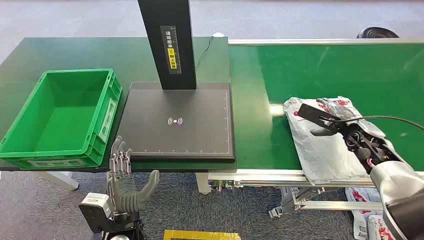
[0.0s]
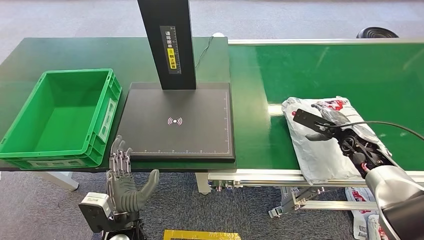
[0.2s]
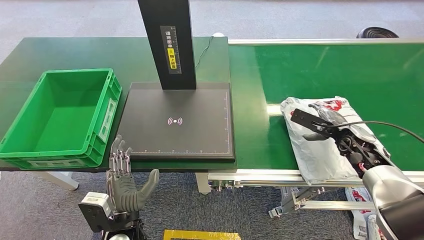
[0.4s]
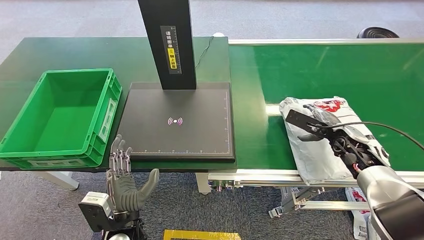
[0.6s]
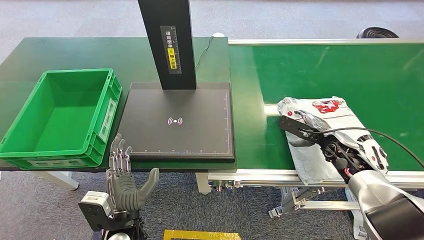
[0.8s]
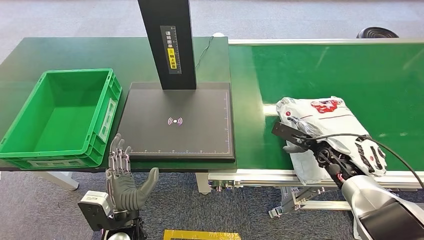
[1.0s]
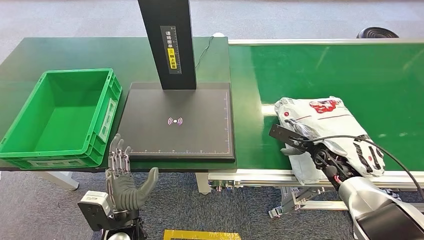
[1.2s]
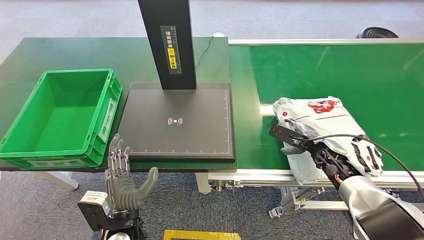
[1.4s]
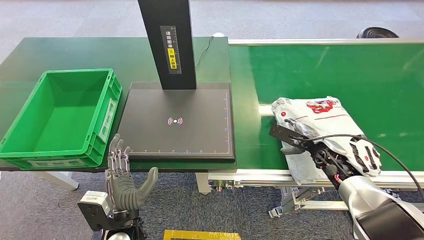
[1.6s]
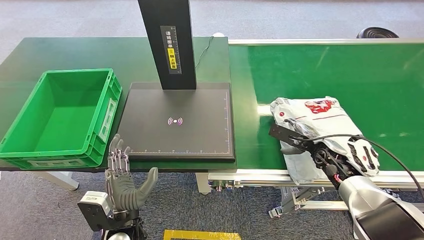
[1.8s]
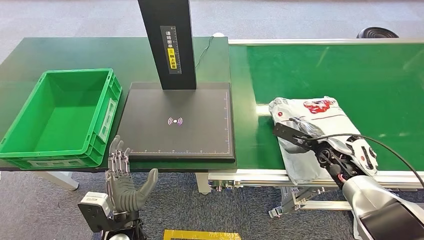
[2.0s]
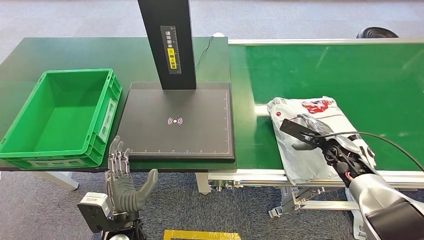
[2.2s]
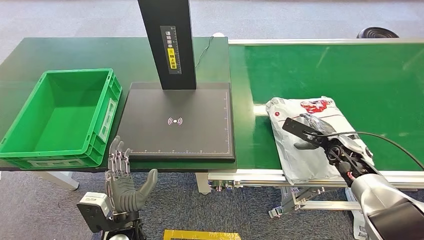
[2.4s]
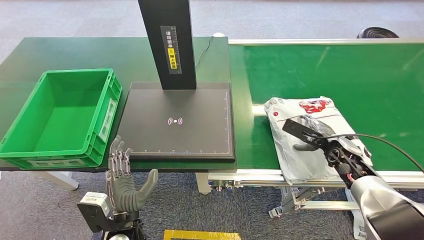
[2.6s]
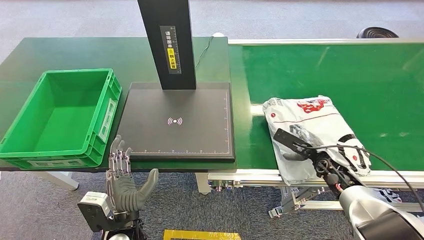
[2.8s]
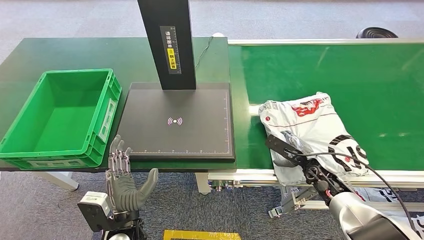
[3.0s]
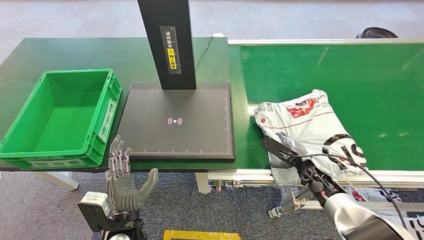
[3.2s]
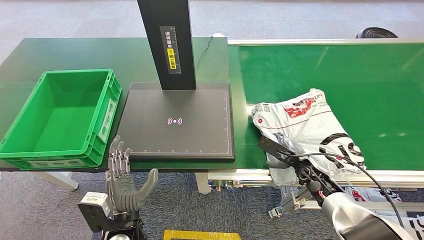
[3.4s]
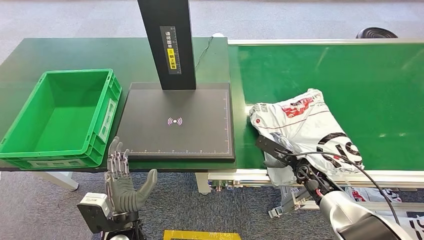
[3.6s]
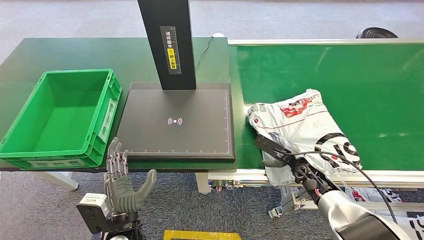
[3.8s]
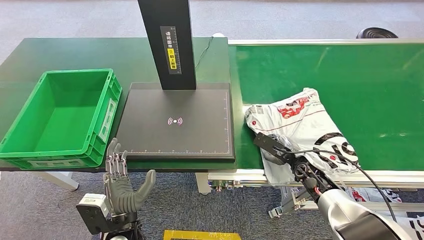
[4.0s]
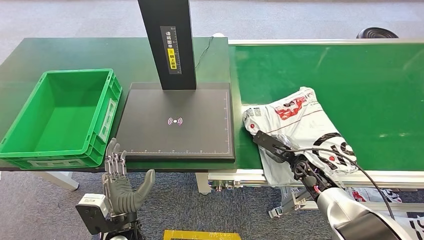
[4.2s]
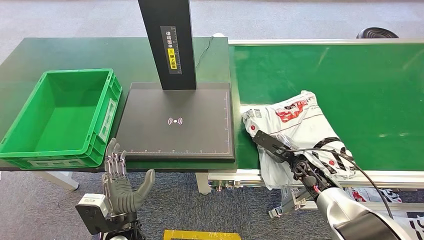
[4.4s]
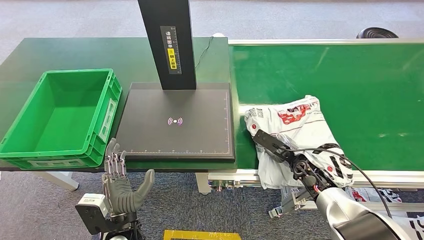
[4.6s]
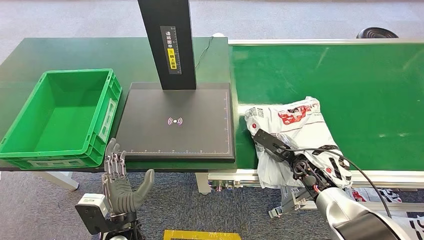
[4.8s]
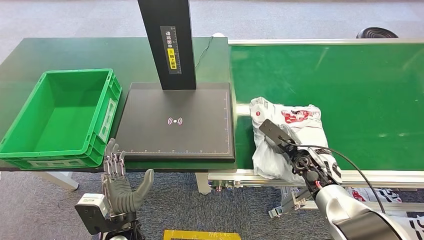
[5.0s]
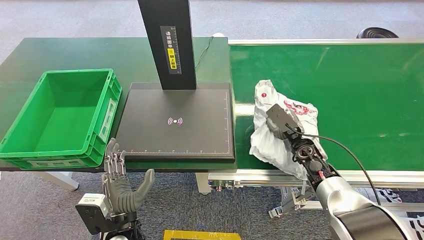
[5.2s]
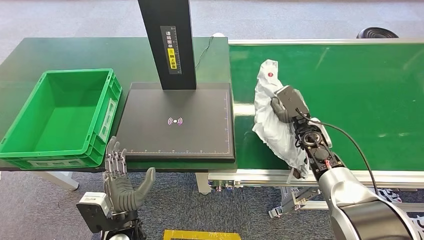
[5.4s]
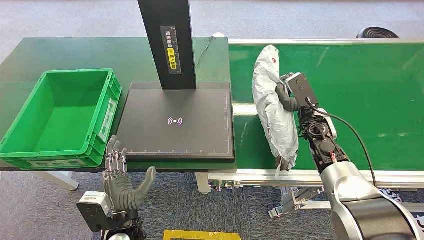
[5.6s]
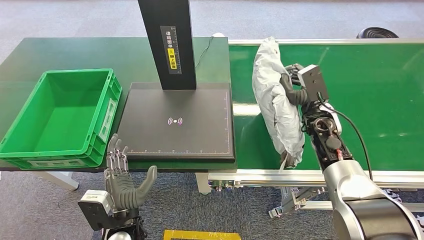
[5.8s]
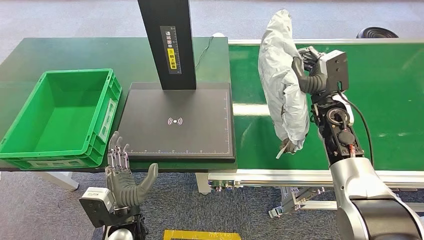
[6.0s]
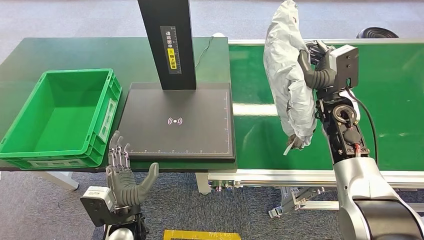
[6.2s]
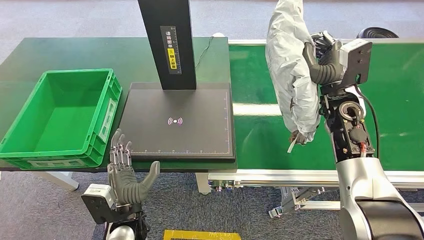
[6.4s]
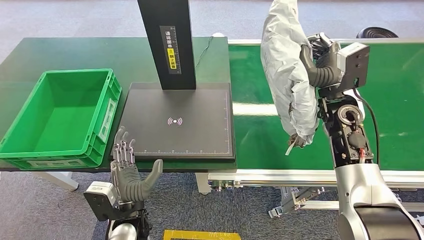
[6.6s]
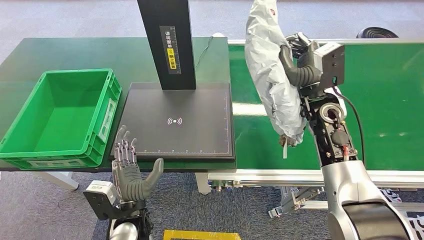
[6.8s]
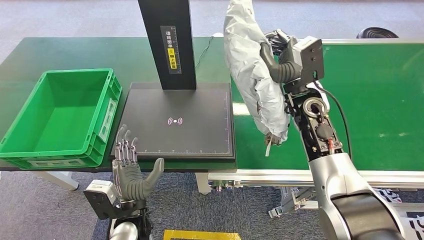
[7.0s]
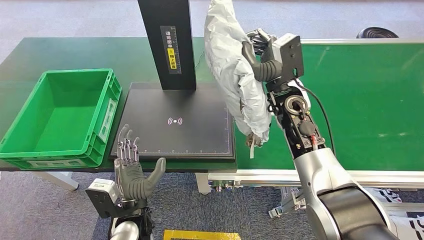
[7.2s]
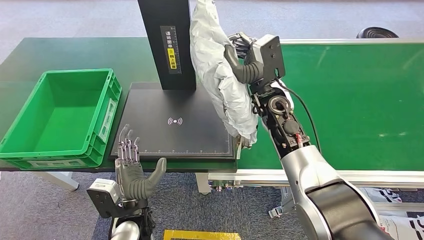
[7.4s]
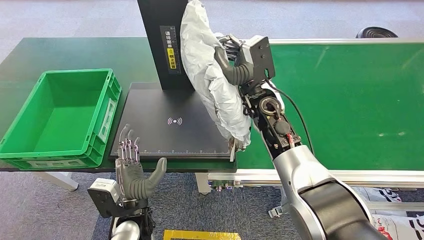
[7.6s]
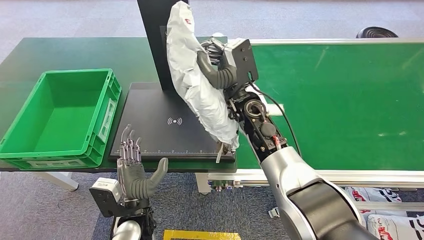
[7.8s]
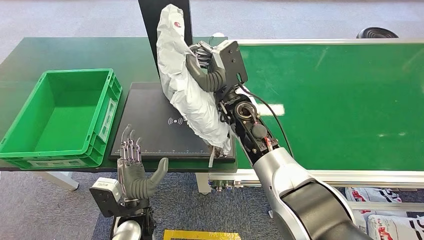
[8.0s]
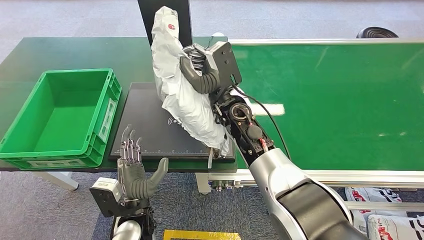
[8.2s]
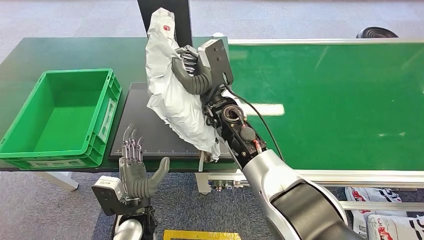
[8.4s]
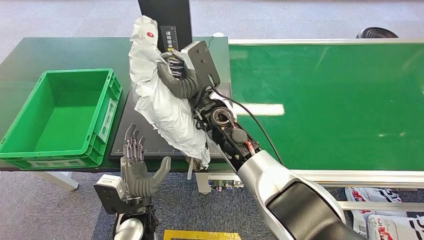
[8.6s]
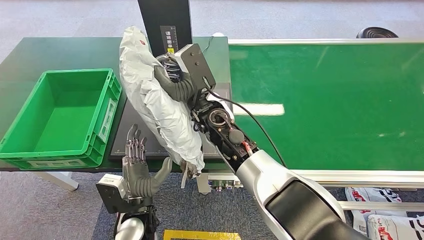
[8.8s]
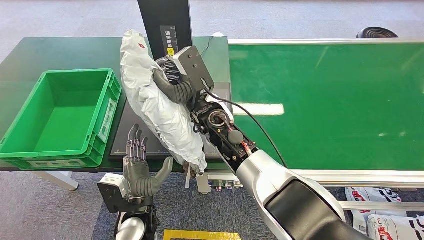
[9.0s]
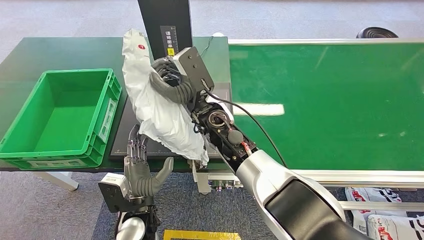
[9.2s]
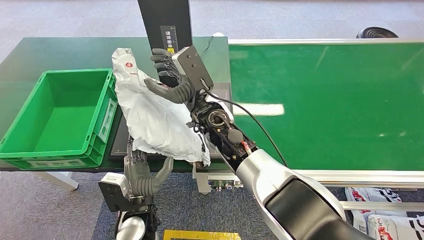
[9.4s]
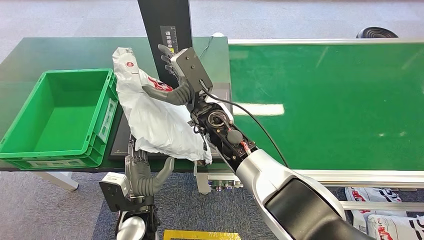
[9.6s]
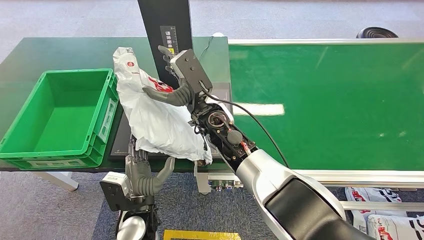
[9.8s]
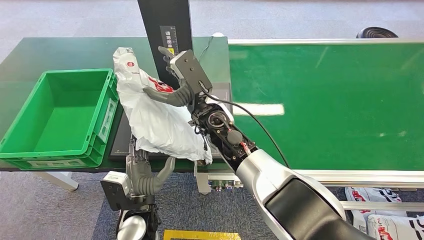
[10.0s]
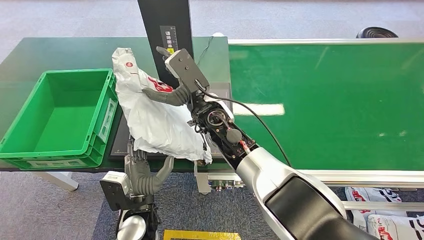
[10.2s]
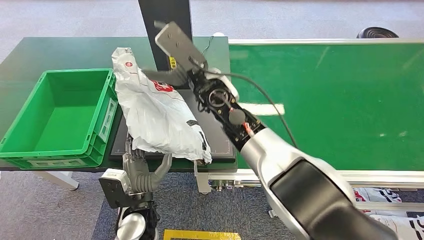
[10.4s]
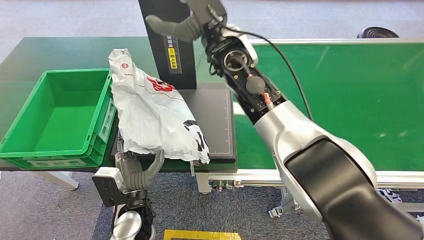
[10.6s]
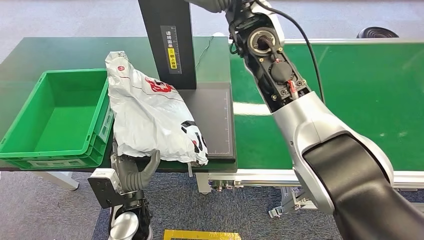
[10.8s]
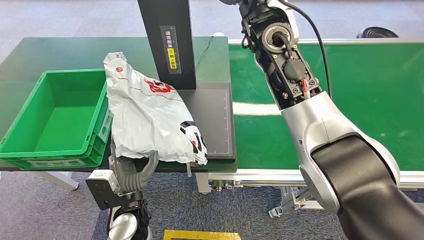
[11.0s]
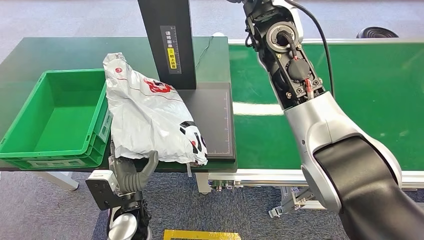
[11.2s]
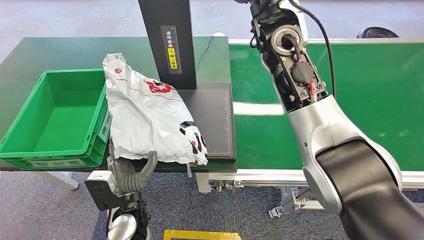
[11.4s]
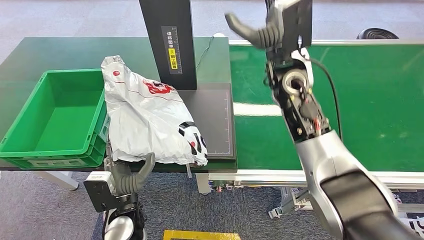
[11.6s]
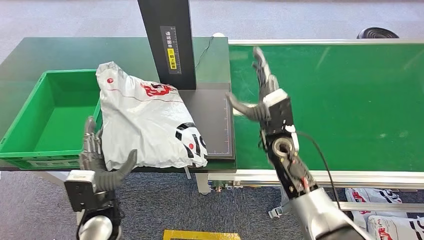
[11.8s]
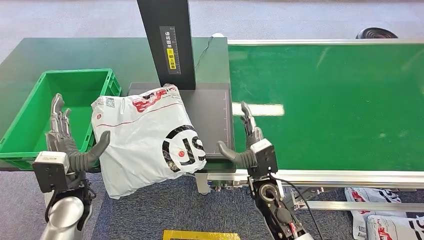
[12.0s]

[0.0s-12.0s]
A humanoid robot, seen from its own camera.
Step, 0.0s to 6.0s: Pick up the package from the conveyor belt.
1.6s to 3.0s: The right hand shifts by approximately 5 cm.
3.0s to 4.4s: The hands make only small movements.
4.4s to 6.0s: The right hand heads upward and forward, covering some 15 cm.

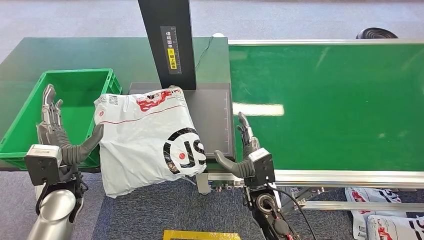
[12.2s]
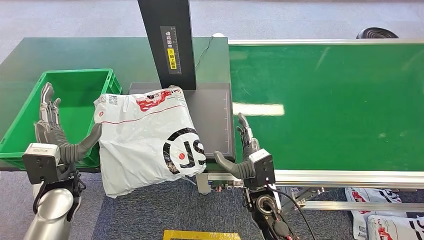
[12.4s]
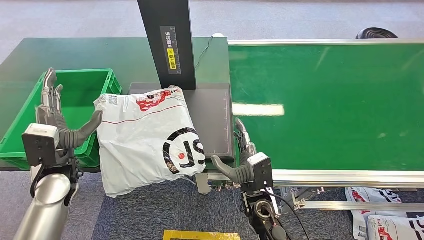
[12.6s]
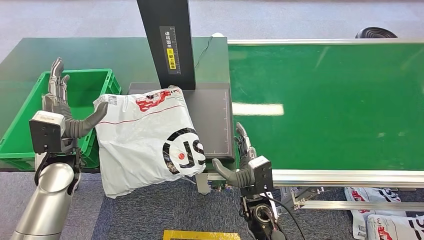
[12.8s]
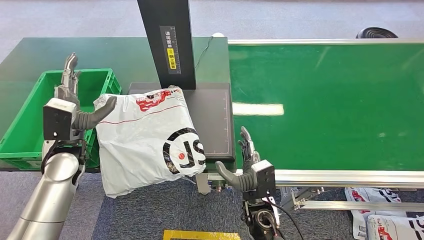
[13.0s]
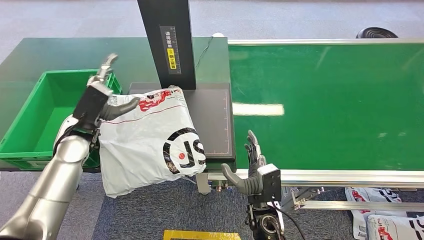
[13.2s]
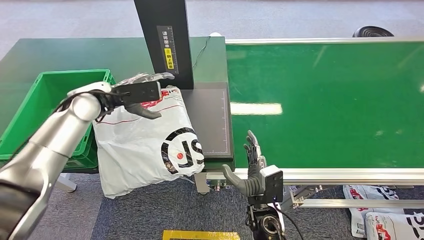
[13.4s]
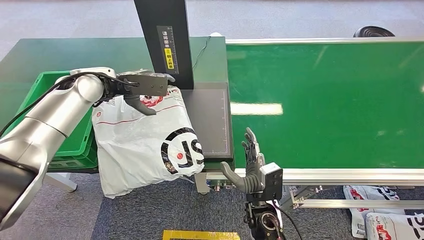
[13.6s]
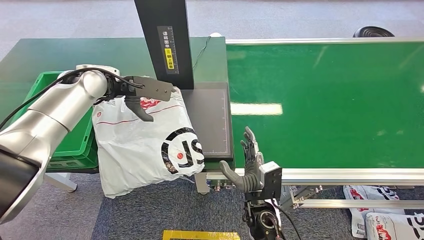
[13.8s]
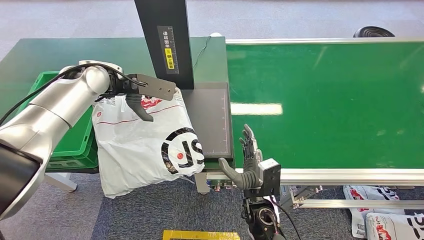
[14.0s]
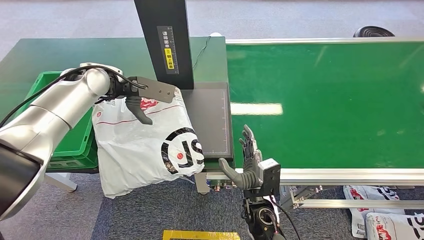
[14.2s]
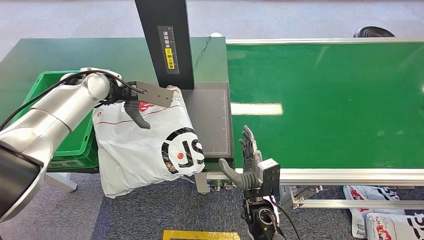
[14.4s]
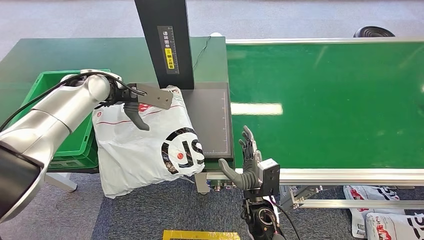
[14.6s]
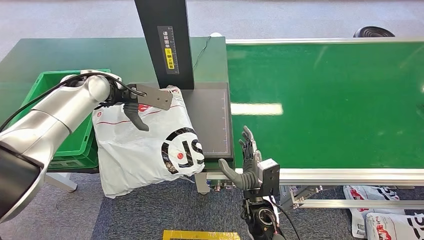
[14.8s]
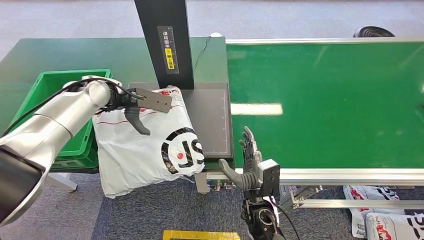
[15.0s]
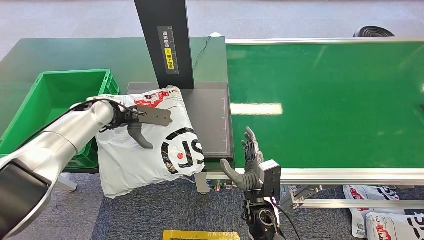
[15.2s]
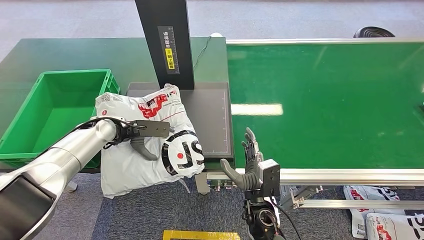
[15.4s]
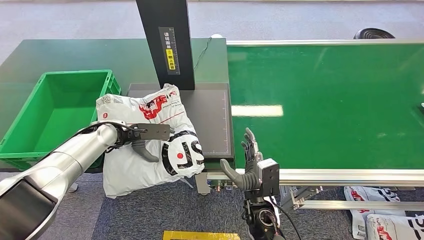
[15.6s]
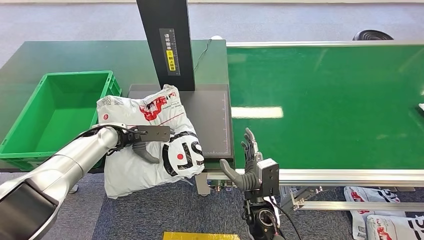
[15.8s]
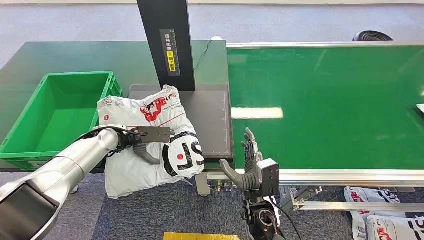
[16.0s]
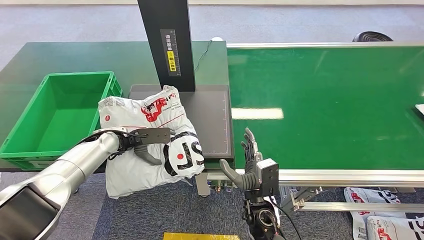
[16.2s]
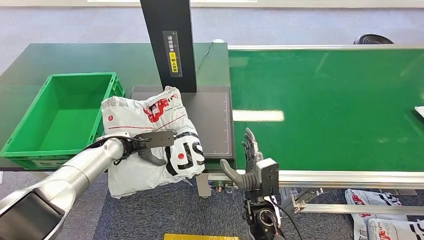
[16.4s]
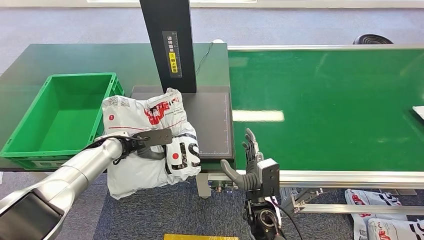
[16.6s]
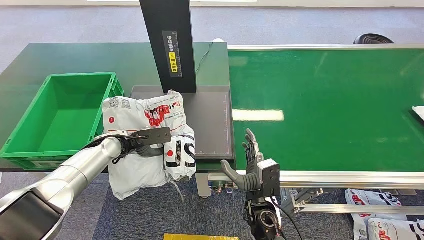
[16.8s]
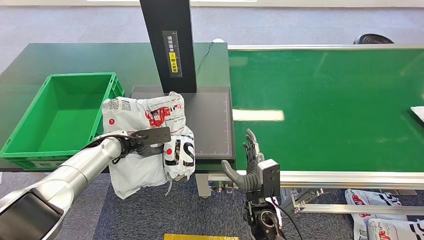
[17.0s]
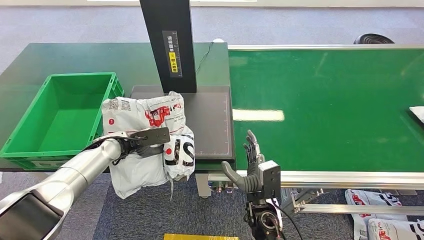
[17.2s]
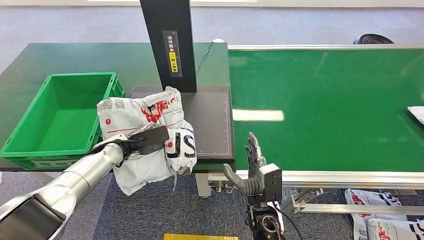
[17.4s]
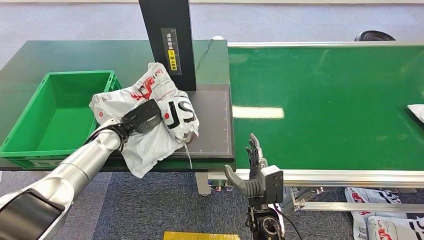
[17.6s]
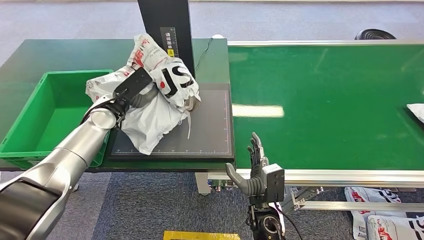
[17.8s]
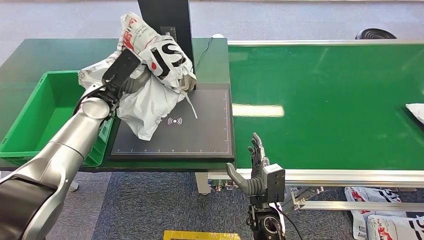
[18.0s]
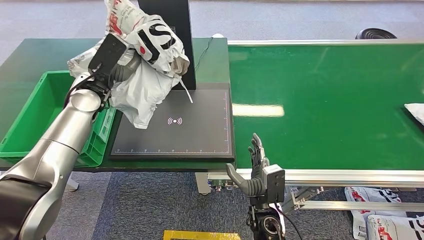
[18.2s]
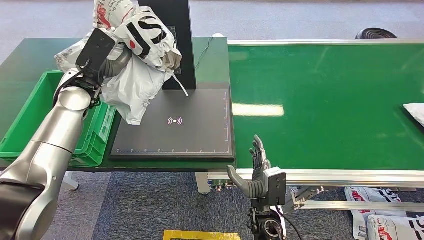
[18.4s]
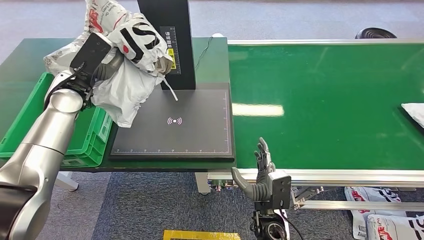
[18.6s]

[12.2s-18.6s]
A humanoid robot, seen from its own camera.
Step, 12.8s to 18.0s: Pick up the package from the inbound machine.
13.8s to 15.4s: The left hand goes about 15 cm downward.
